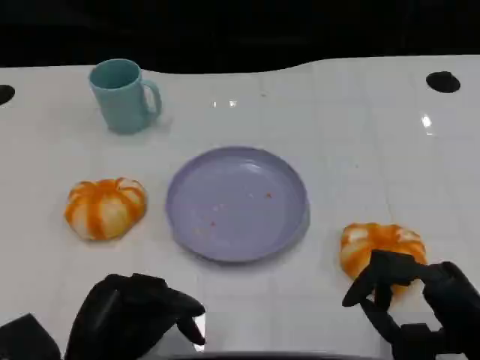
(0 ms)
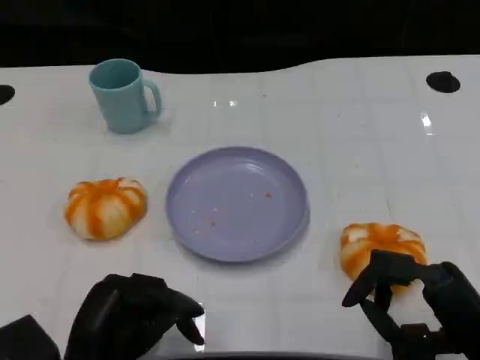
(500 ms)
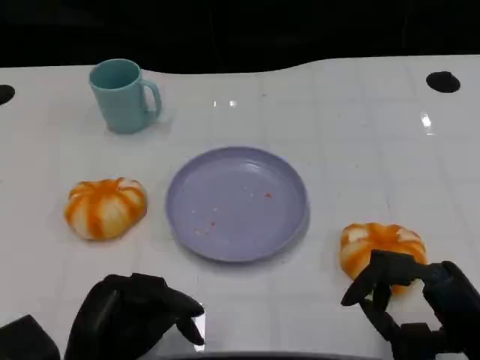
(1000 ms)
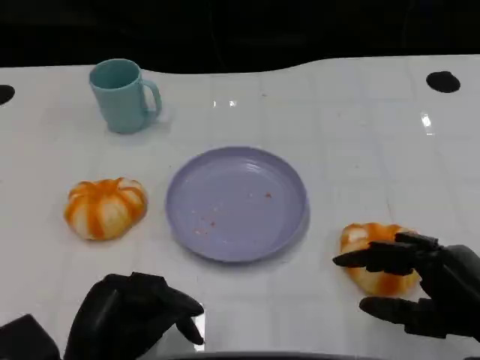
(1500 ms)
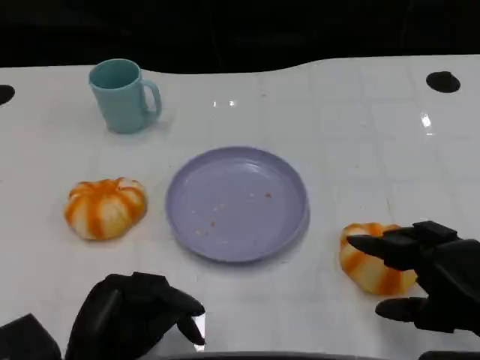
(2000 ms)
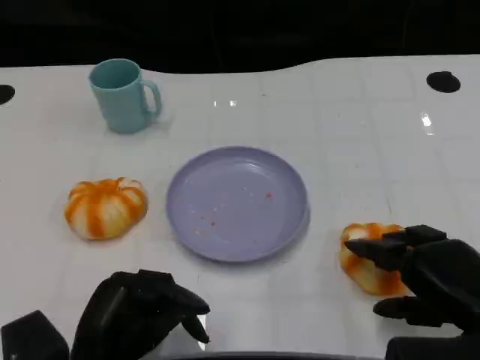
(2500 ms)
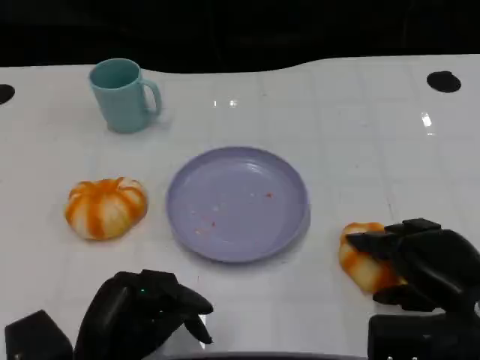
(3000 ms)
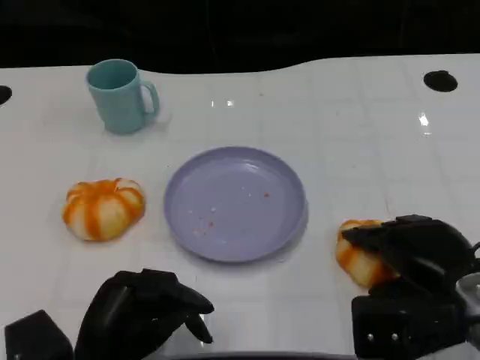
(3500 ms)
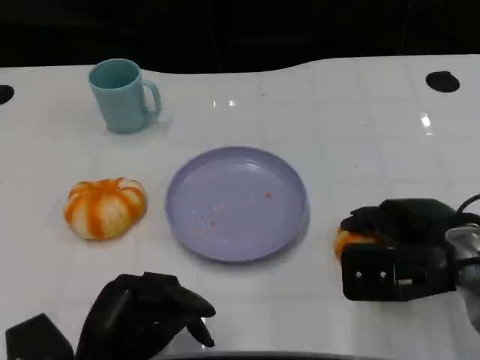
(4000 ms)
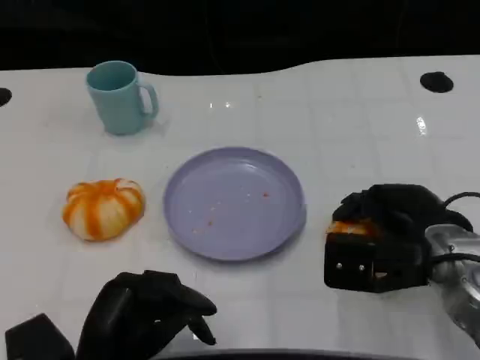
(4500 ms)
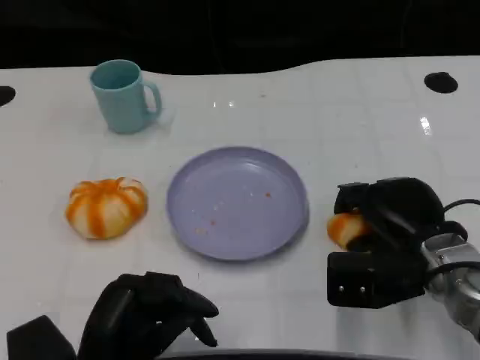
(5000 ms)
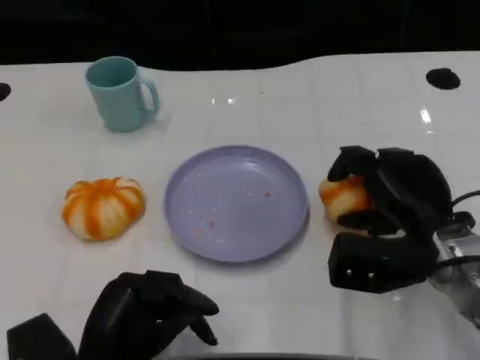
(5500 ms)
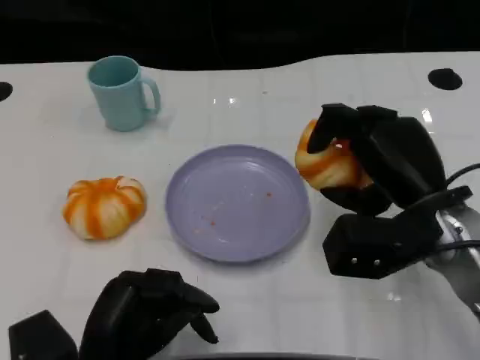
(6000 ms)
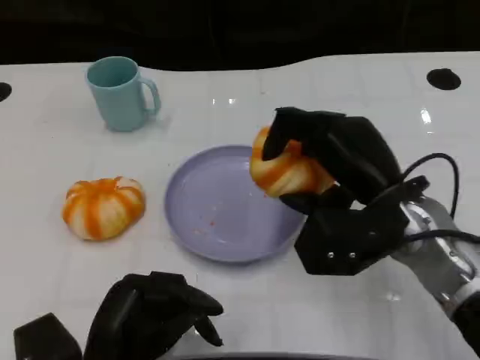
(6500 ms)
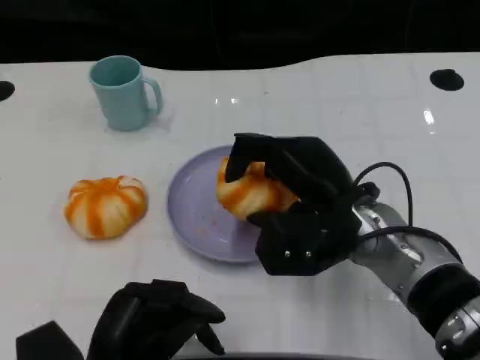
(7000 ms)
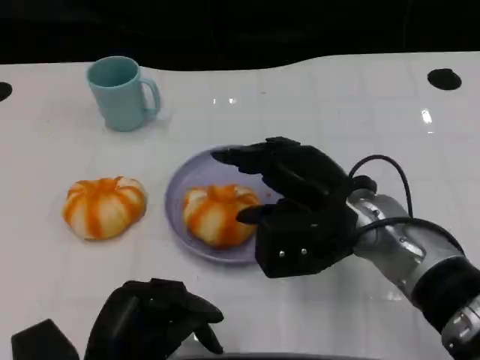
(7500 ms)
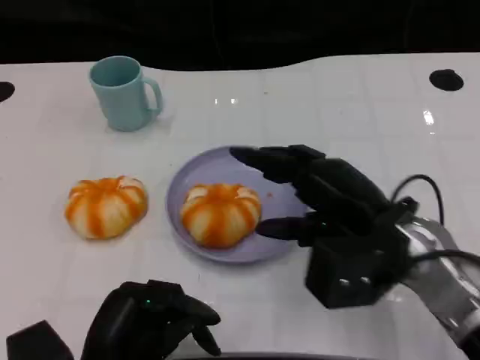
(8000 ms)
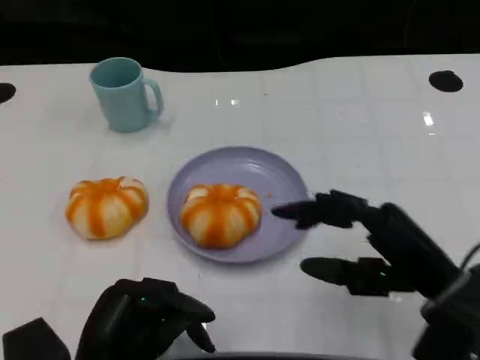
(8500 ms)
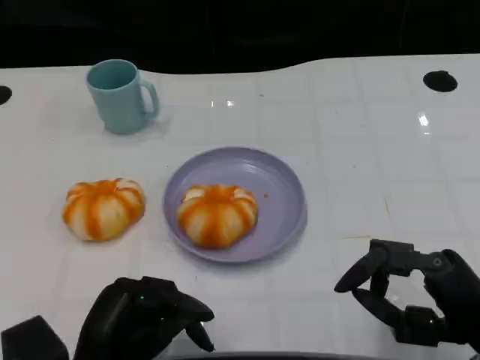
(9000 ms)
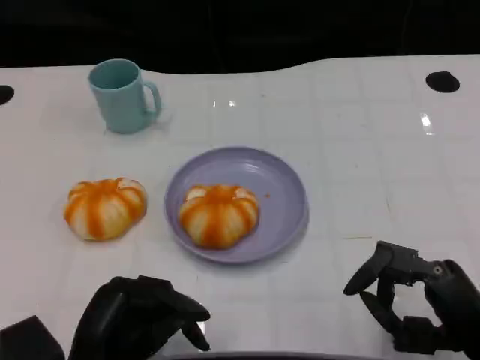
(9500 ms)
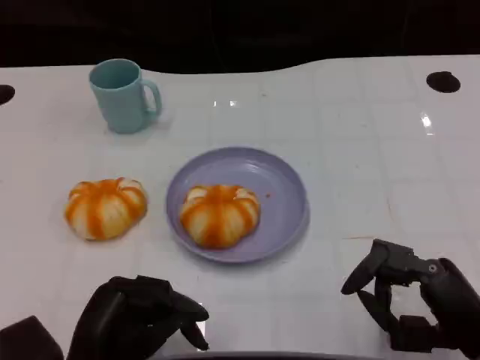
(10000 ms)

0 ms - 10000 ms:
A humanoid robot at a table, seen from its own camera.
Task of the whole recording: Grasp the bread from the table and place it into the plate.
2000 ms - 4000 ms: The right hand goes about 10 cm forward.
8000 ms - 10000 ms: The right hand heads backward, to the right and downward, covering approximately 15 cm.

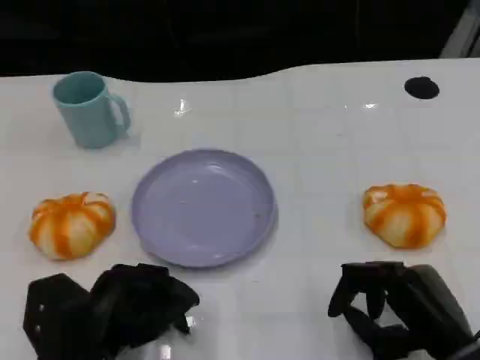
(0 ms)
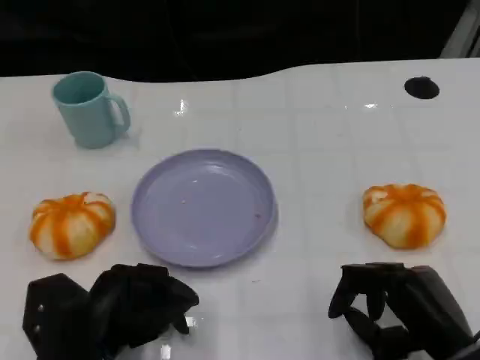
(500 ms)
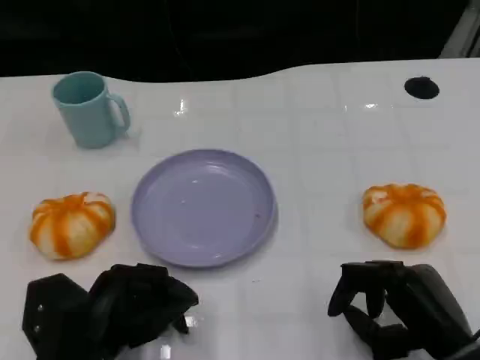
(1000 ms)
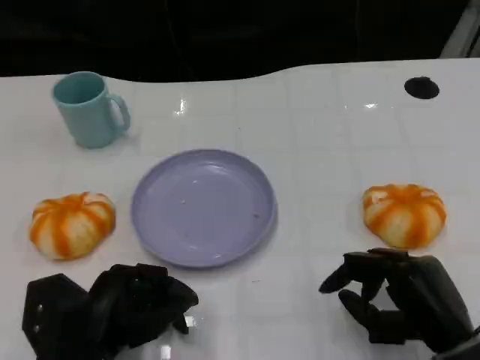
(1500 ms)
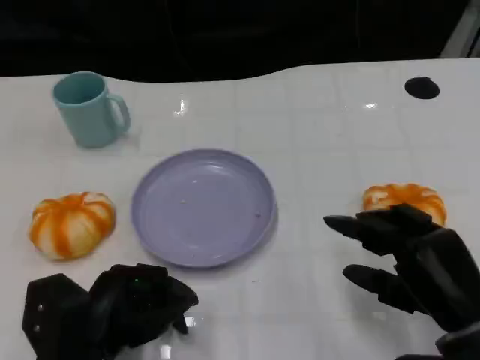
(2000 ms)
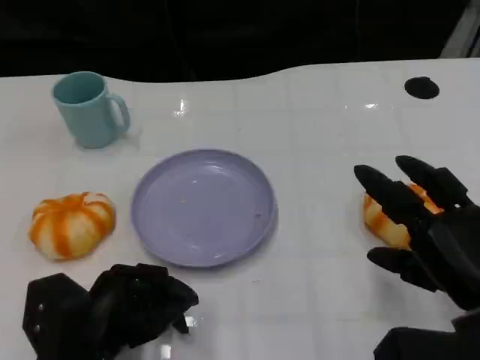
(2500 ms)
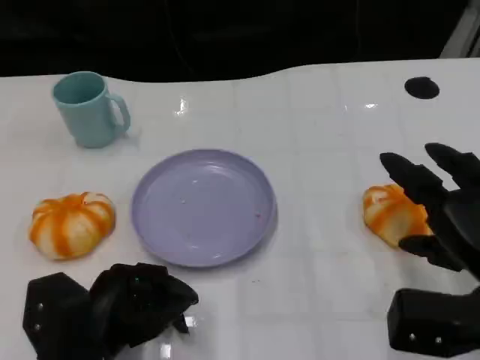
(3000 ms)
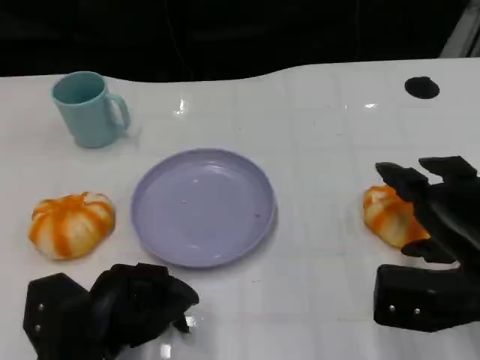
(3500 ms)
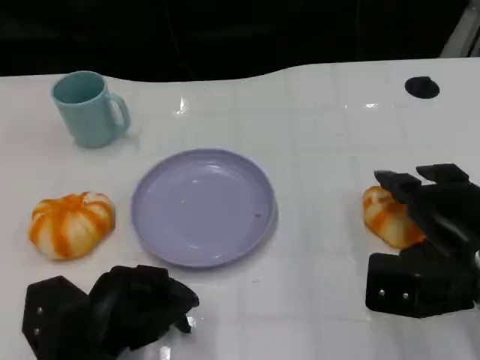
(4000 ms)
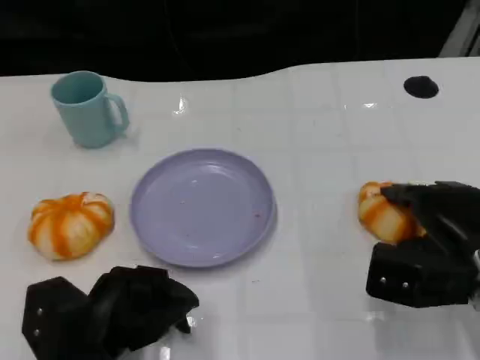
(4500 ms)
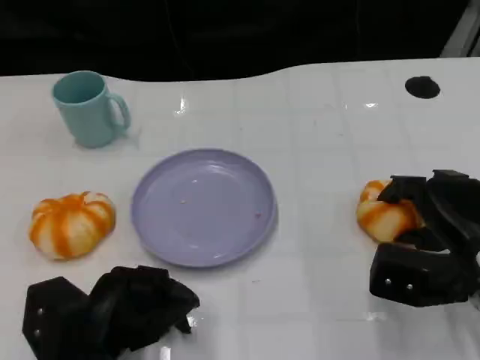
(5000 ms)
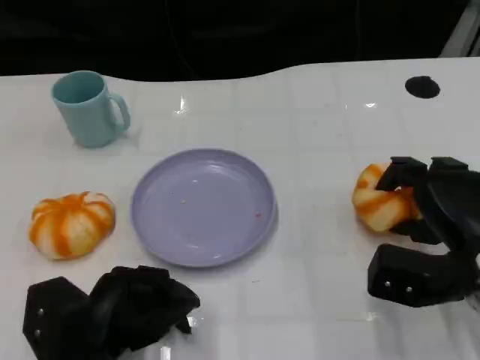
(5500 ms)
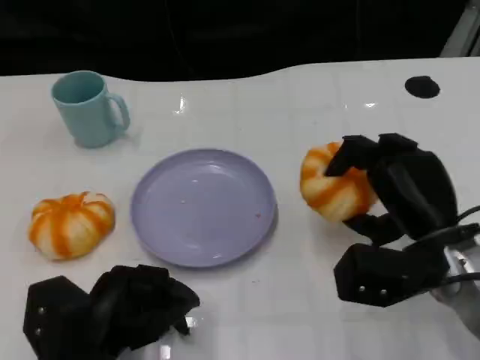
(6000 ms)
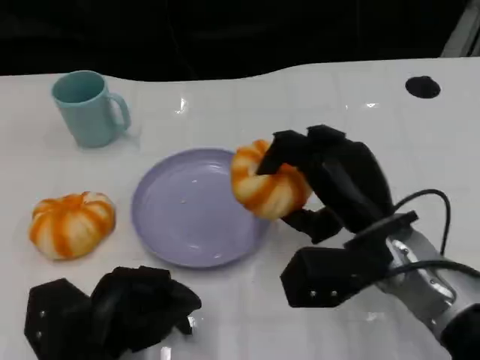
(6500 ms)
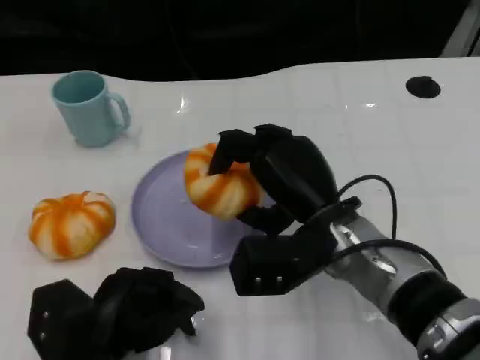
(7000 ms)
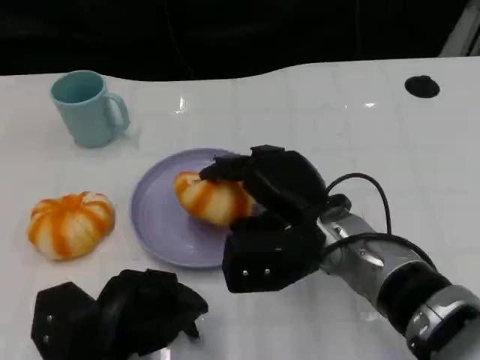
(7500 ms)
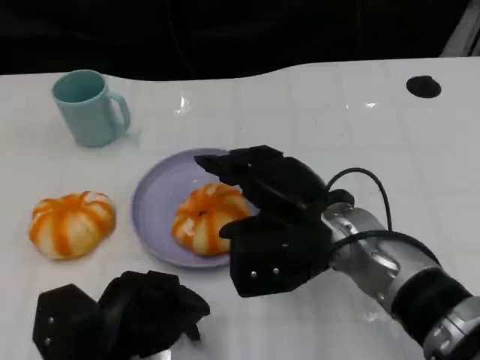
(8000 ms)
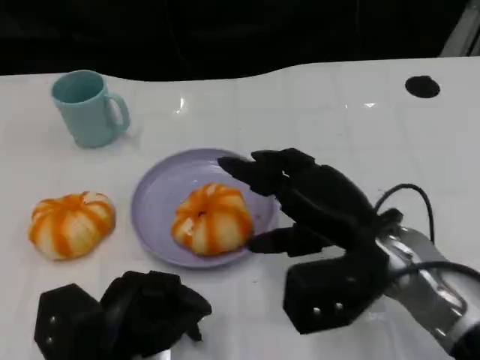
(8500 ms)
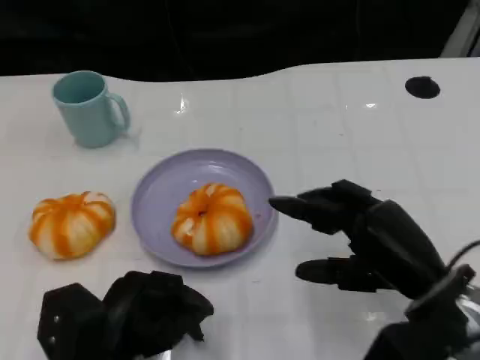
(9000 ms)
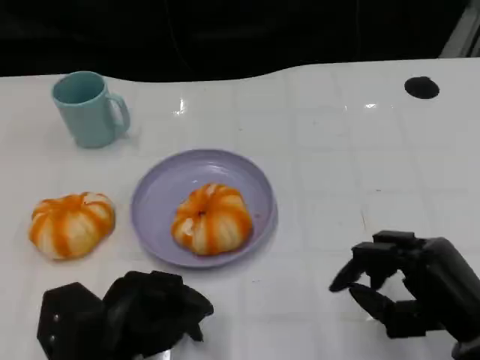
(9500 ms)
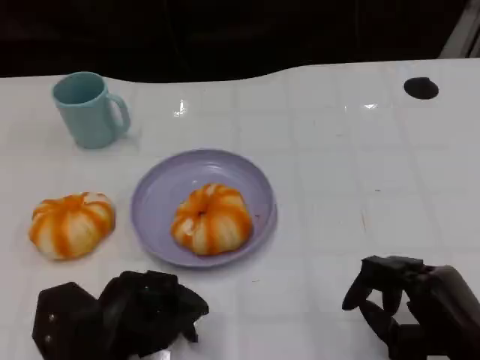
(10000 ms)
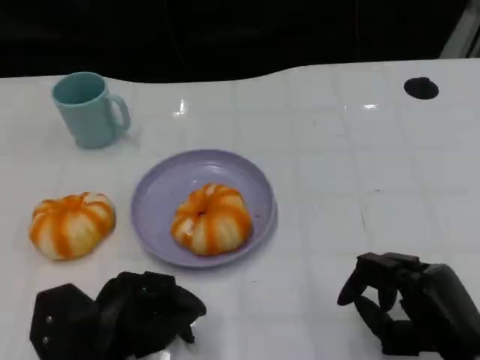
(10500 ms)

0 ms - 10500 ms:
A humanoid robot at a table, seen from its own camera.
Task of the whole recording: Grasp the bread from the table and place it into the plate.
0 ms - 2000 ms: The hands make only small movements.
2000 ms - 4000 ms: The right hand goes about 5 cm forward.
4000 ms - 6500 ms: The right hand heads to the left, covering approximately 10 cm.
8500 ms - 10500 ms: The right hand travels backward, to the right and downward by about 15 cm.

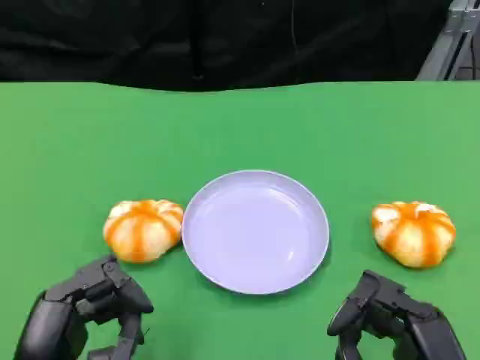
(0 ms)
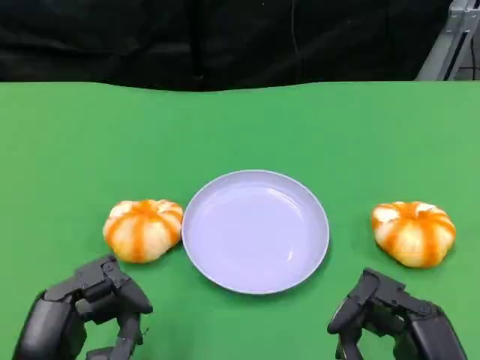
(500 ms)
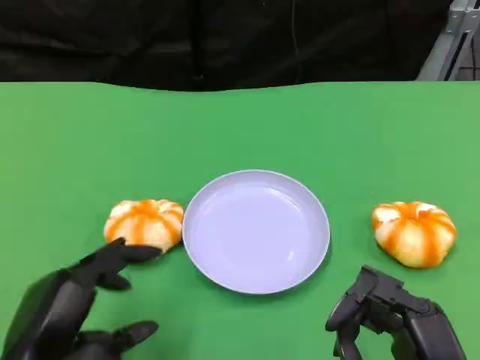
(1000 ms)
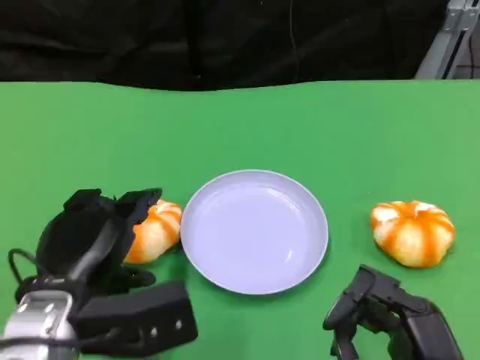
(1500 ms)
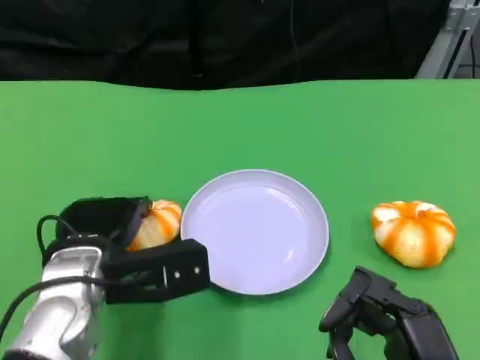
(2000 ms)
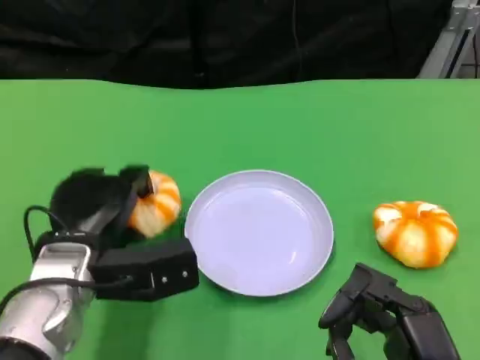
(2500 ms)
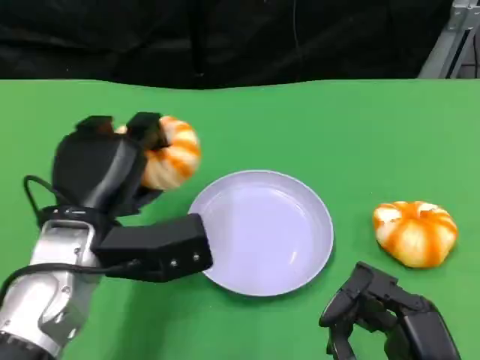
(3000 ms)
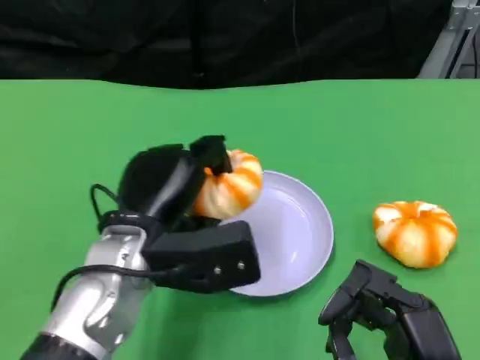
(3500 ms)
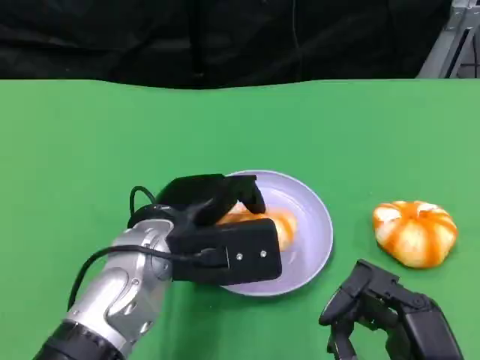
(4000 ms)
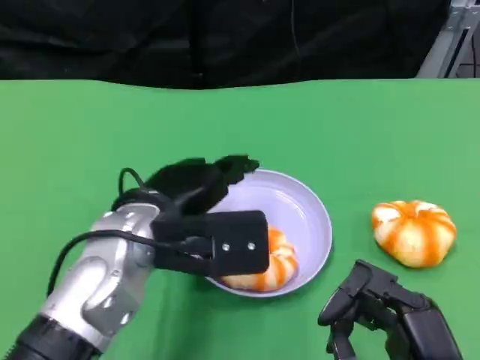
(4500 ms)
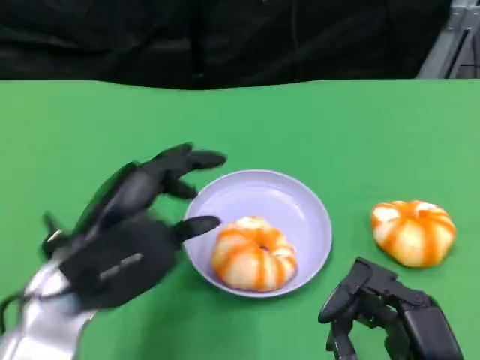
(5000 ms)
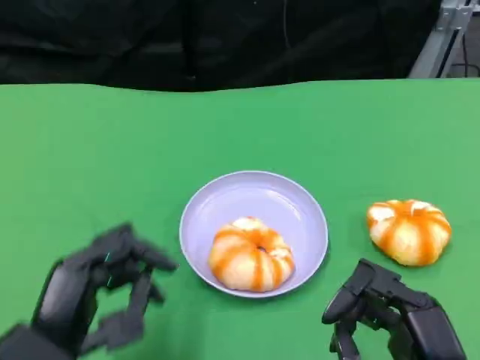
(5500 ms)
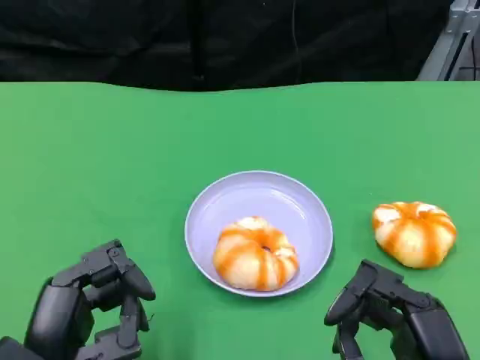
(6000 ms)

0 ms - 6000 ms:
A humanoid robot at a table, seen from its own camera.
Task of the whole recording: Grasp the bread from the table and place it into the plate.
0 ms - 2000 ms: The left hand is displaced forward by some 15 cm.
2000 ms - 4000 ms: The left hand moves to the right, roughly 5 cm.
4000 ms - 6000 ms: The left hand heads backward and to the left, covering about 15 cm.
